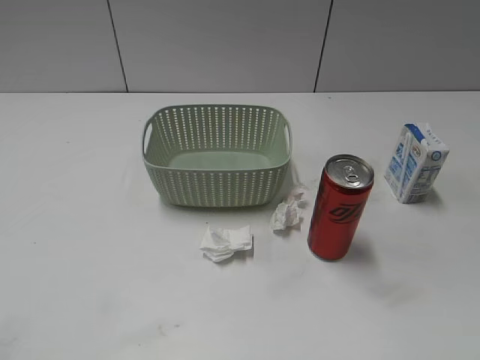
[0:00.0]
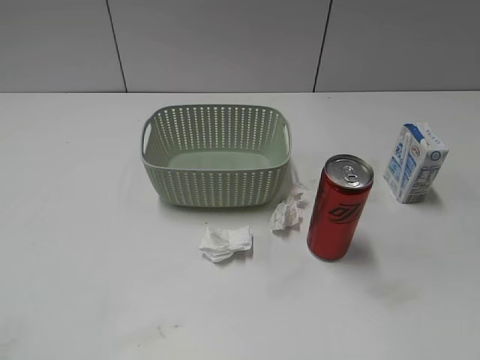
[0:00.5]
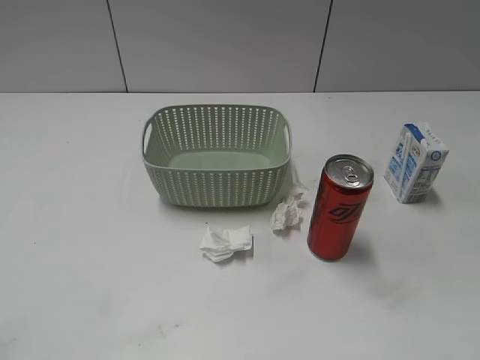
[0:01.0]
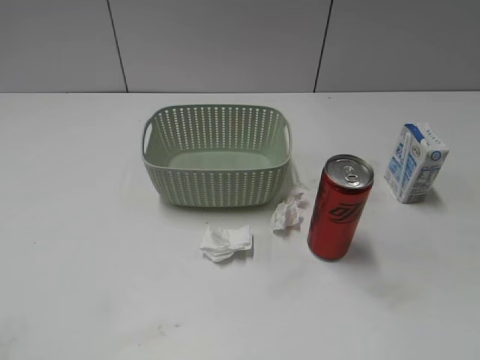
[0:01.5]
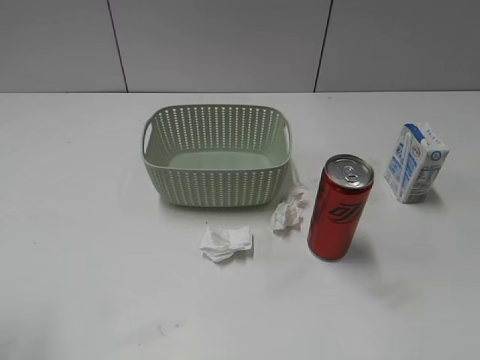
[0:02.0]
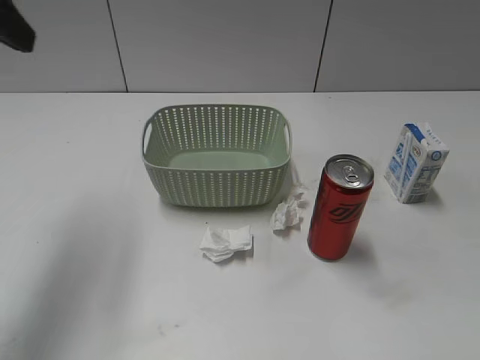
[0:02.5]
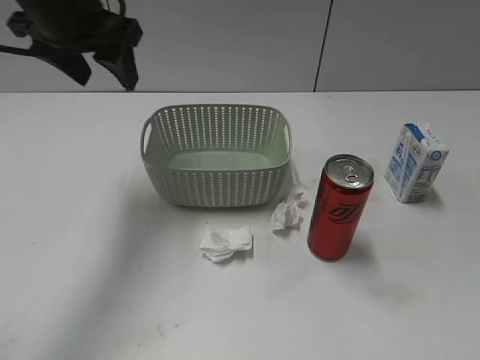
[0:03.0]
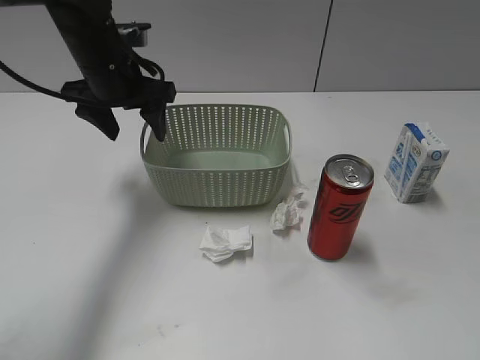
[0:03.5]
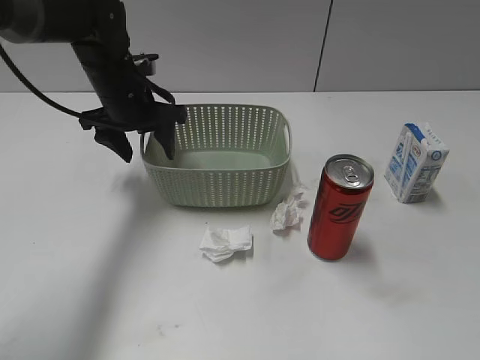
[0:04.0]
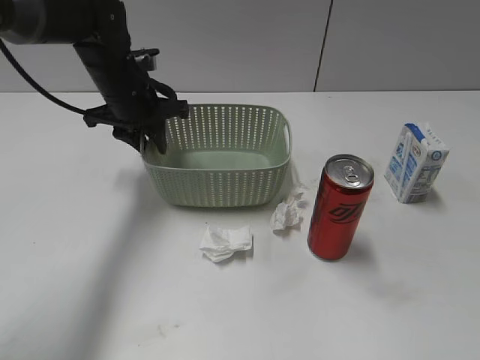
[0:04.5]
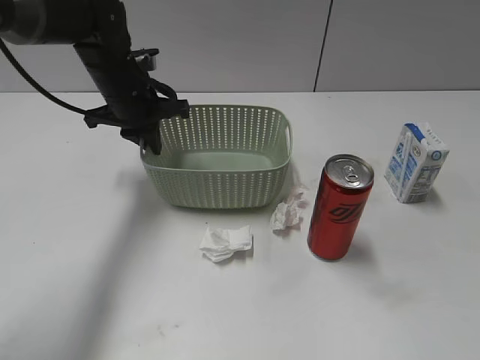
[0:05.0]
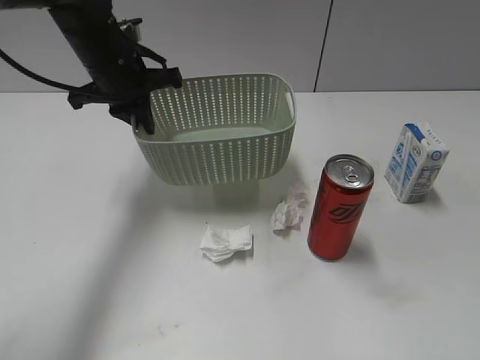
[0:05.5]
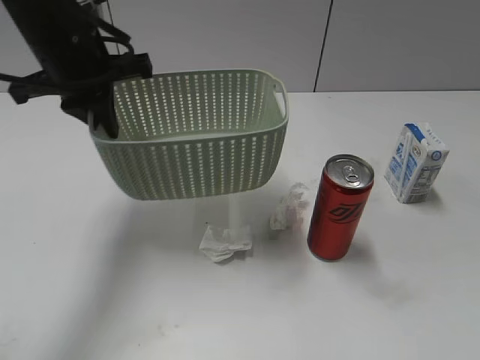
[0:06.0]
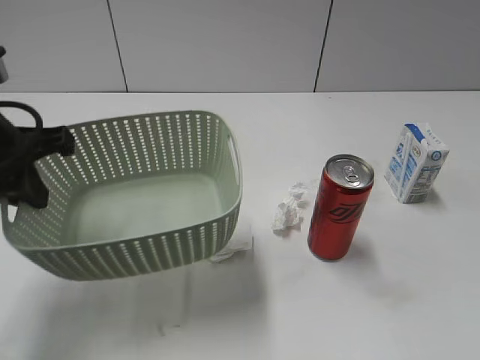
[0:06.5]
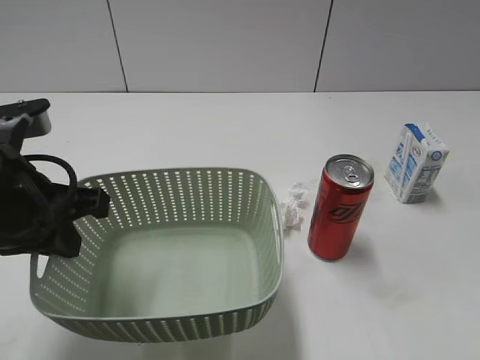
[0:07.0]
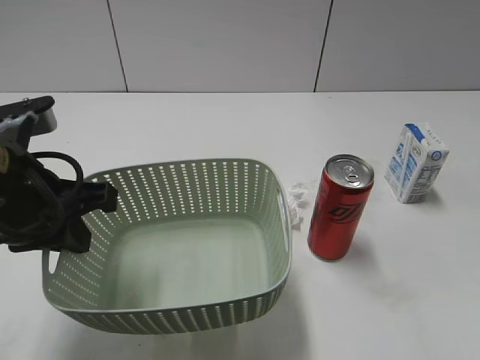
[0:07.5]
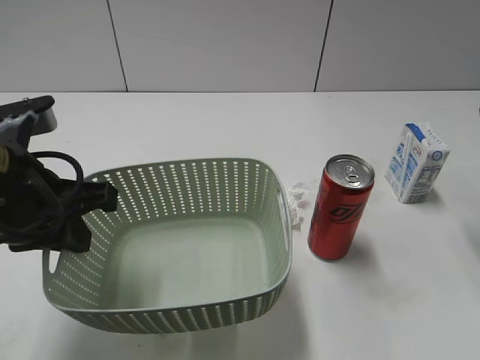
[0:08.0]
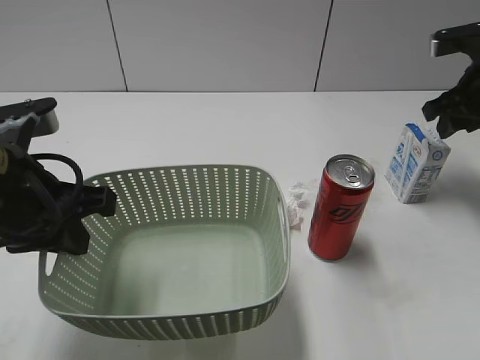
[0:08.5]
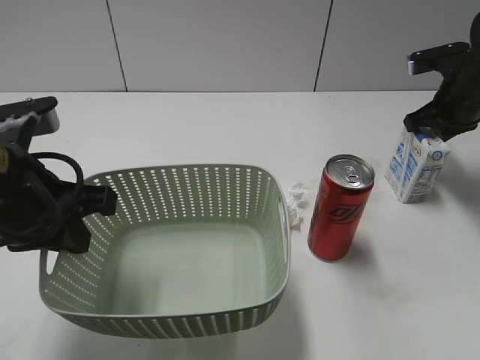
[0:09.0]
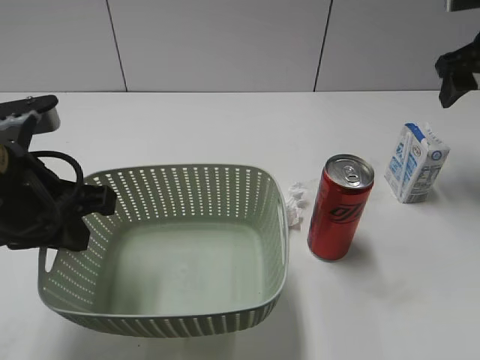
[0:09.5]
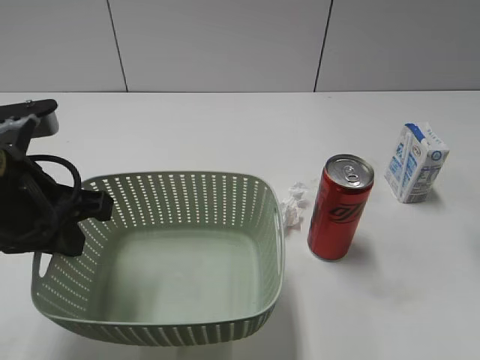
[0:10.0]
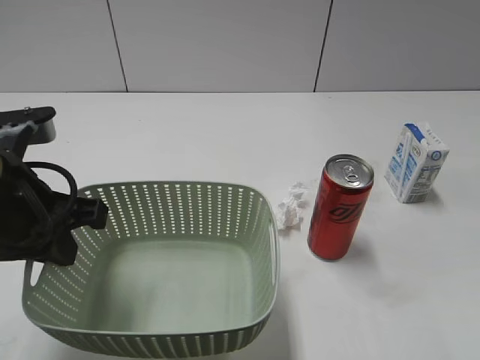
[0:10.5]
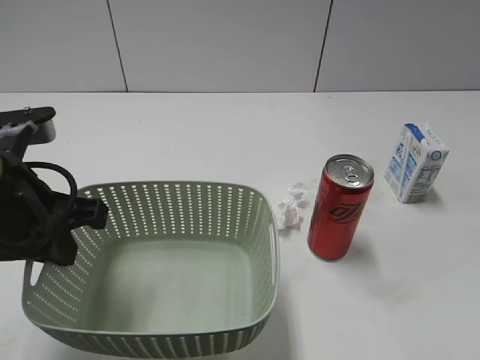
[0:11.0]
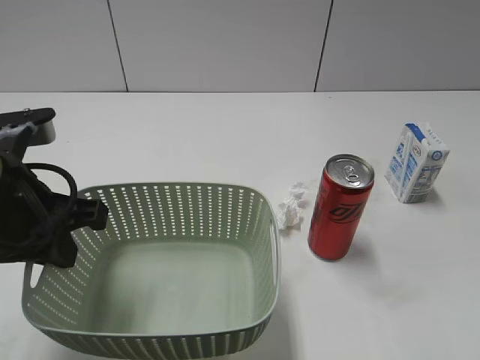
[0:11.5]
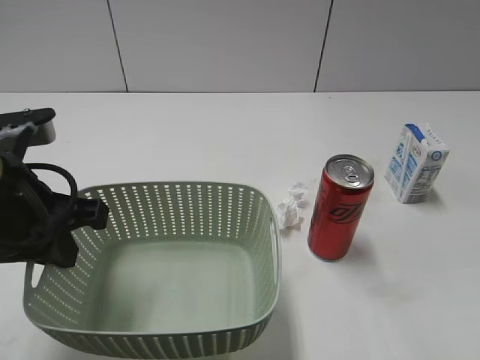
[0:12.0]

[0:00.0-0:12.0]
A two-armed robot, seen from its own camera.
Step, 0:02.5 to 0:04.5: Grasp the basket with left gripper.
Step, 0:05.0 to 0:08.0: Lift the basket with left gripper.
0:02.0 to 0:04.0: The left gripper shifts about 40 cm forward, downward and to the right.
0:04.0 to 0:06.0: The left gripper shifts roughly 10 cm upward and backward, and closes.
0:06.0 to 0:08.0: The right gripper heads forward, covering some 25 cm, and closes its fingers, while the left gripper travels backward by roughly 15 cm.
0:08.0 to 0:10.0: The right gripper moves roughly 15 cm downward and comes back, and opens its fingers.
0:10.0 to 0:12.0: The right gripper is displaced backward by some 20 cm.

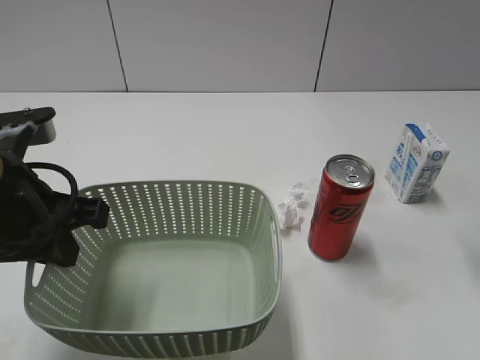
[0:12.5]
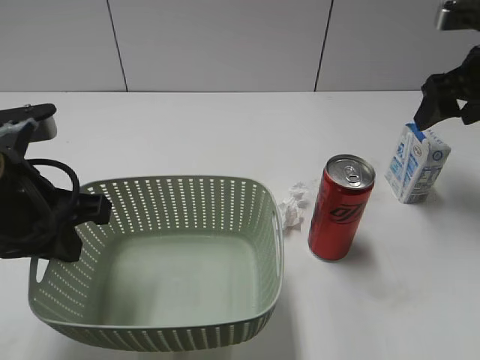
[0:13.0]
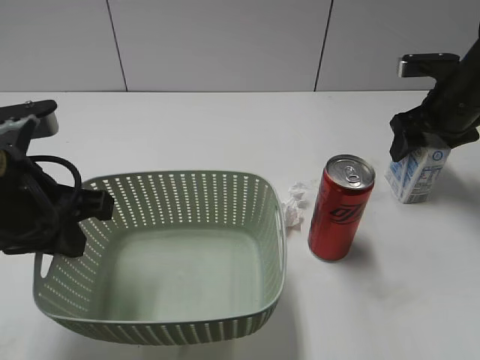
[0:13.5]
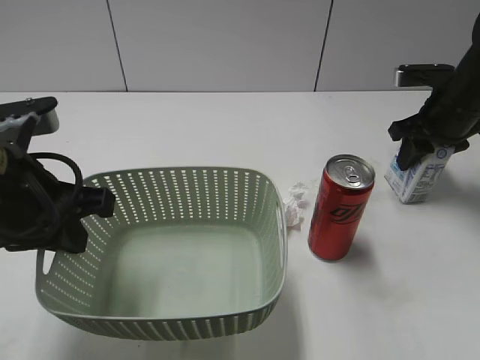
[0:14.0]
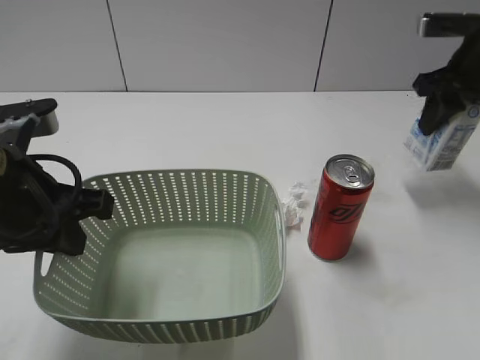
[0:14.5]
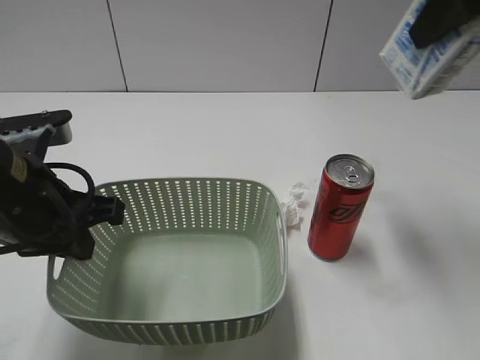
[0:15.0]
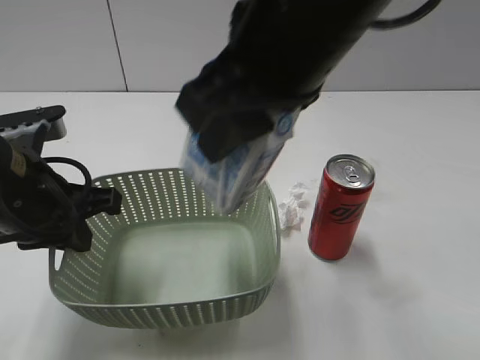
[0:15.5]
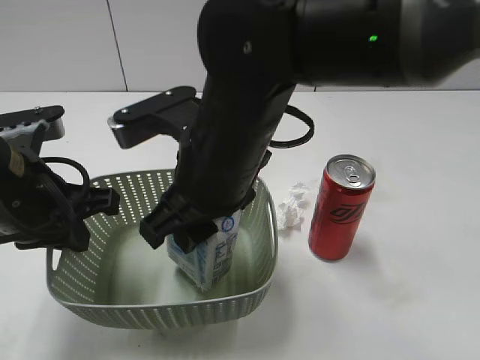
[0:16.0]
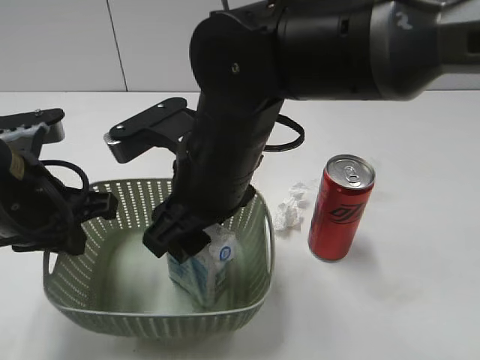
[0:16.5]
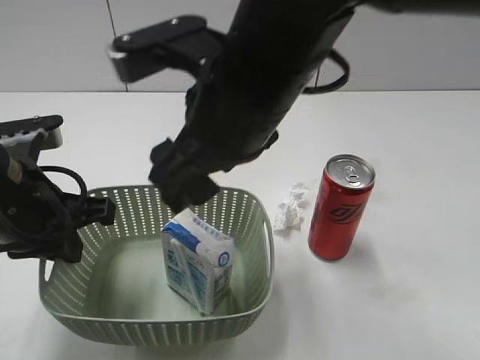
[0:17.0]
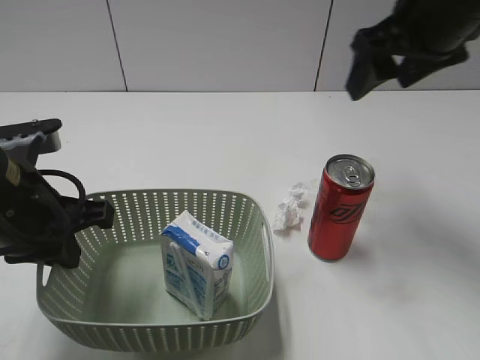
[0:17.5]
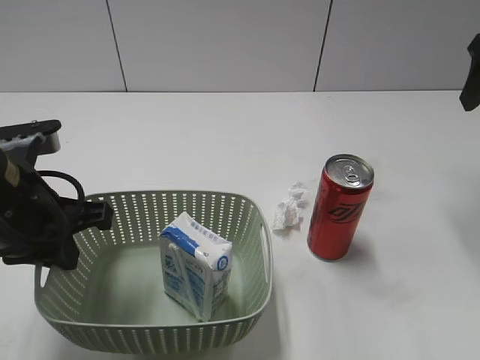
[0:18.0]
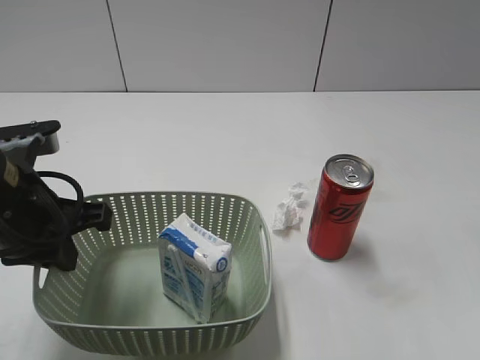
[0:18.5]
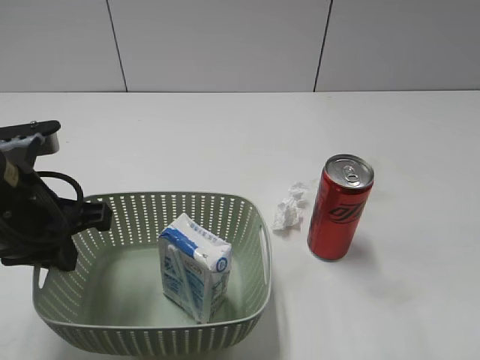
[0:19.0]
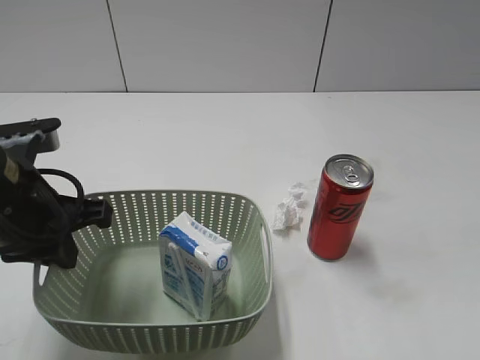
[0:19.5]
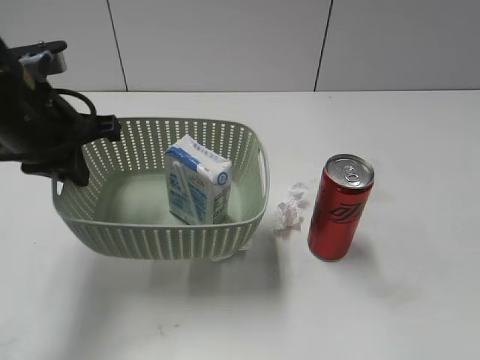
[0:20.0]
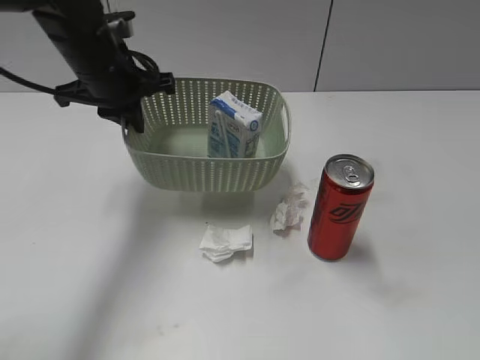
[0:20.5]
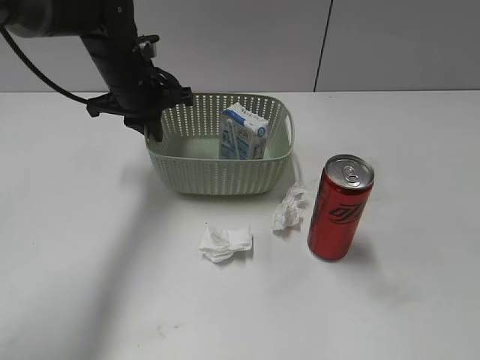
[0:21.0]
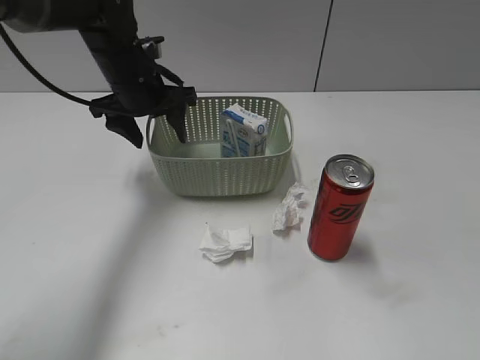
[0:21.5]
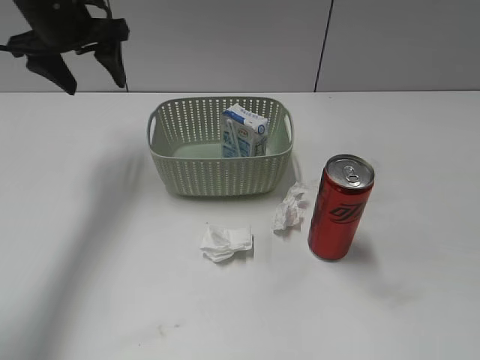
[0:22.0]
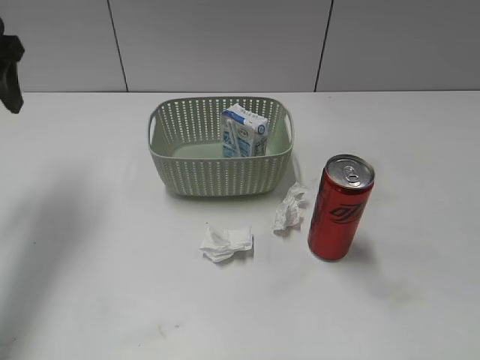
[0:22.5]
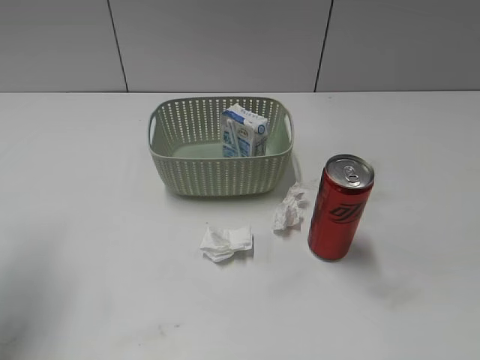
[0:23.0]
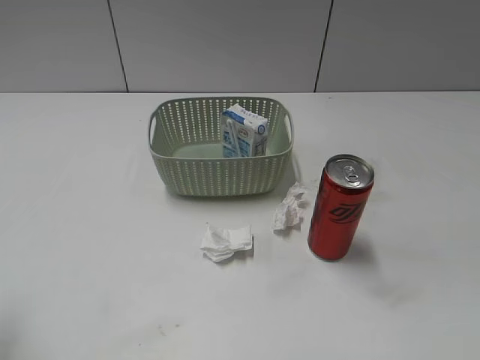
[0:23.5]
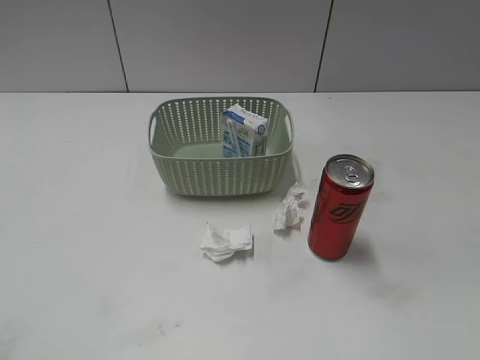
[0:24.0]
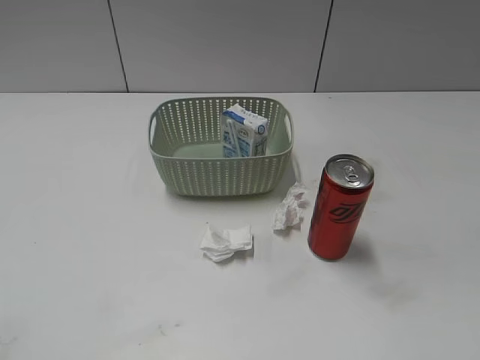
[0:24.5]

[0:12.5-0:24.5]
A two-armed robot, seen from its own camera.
Step, 0:14.5 to 0:17.0: Place the milk in the basket with right gripper.
Step, 0:17.5 to 0:21.5: Place the basket on the table with left gripper.
0:12.5 to 0:14.5: The right gripper shifts about 20 cm forward and downward, and closes up.
0:14.5 to 0:16.5: The right gripper heads to the left and backward, covering approximately 35 cm.
0:16.5 to 0:18.5: The right gripper goes some 30 cm to the right.
0:18.5 to 0:20.5: The left gripper goes approximately 20 cm forward. Meanwhile the right gripper travels backward by some 20 cm.
0:20.5 to 0:22.5: The left gripper heads to the left and upward, covering roughly 15 cm, and opens.
0:22.5 to 0:24.5: The left gripper moves backward, approximately 35 cm.
